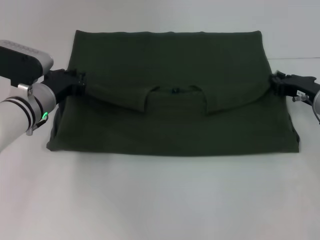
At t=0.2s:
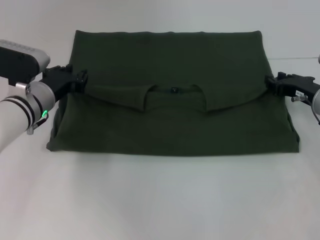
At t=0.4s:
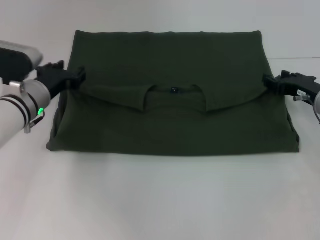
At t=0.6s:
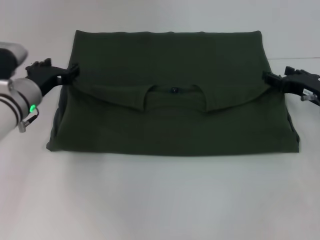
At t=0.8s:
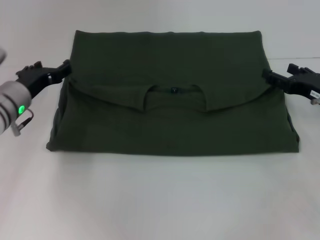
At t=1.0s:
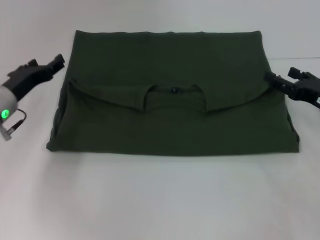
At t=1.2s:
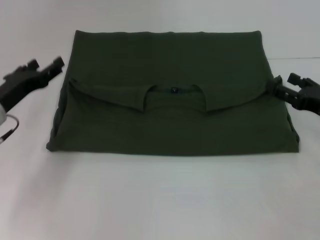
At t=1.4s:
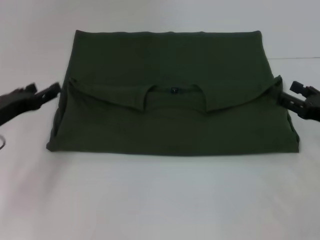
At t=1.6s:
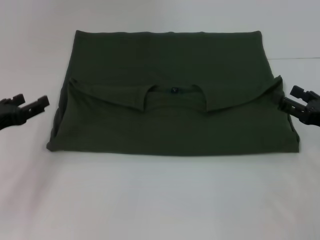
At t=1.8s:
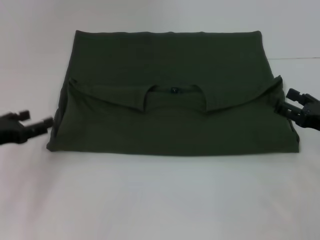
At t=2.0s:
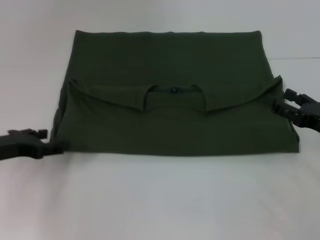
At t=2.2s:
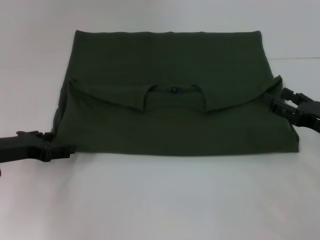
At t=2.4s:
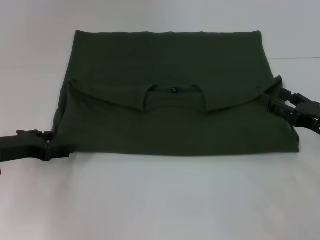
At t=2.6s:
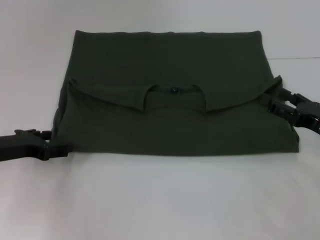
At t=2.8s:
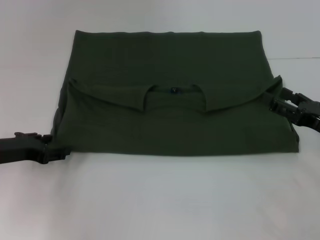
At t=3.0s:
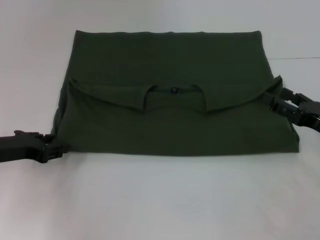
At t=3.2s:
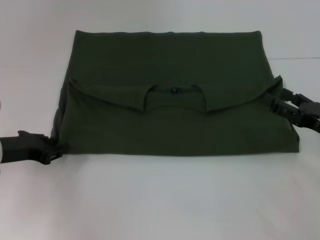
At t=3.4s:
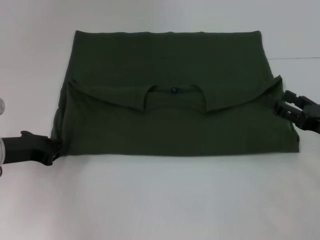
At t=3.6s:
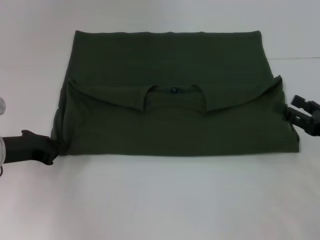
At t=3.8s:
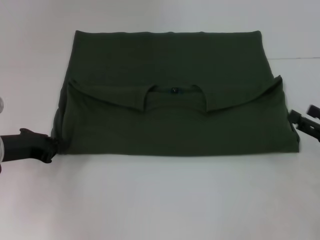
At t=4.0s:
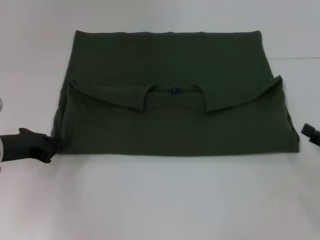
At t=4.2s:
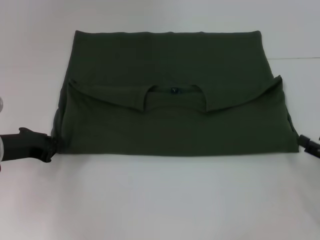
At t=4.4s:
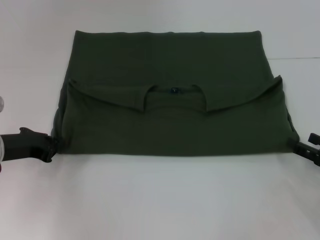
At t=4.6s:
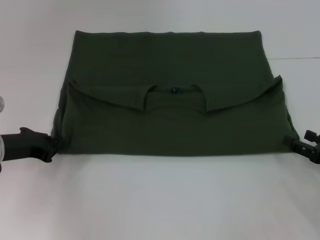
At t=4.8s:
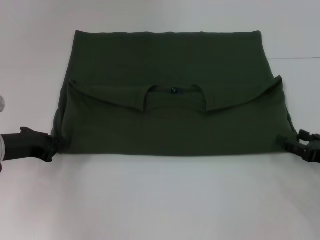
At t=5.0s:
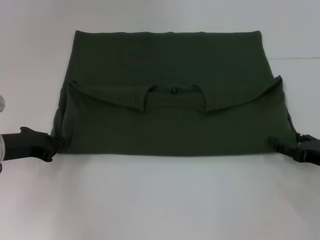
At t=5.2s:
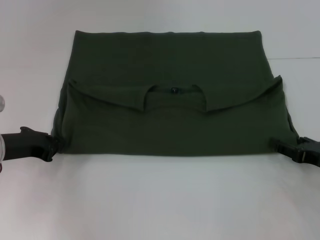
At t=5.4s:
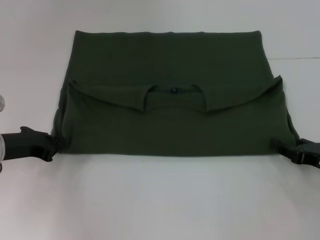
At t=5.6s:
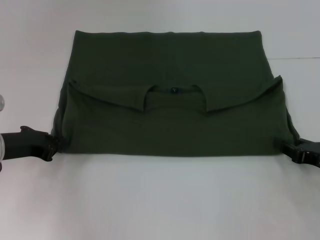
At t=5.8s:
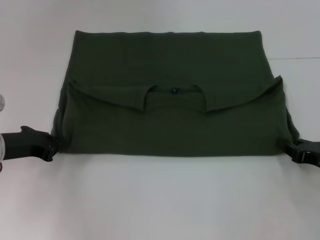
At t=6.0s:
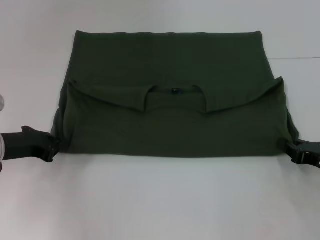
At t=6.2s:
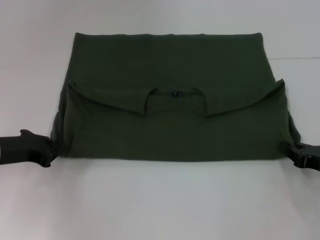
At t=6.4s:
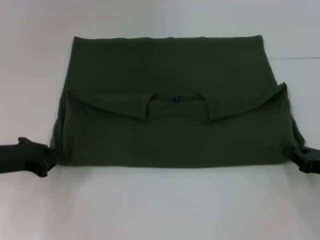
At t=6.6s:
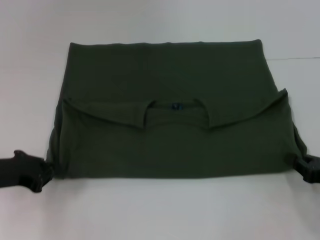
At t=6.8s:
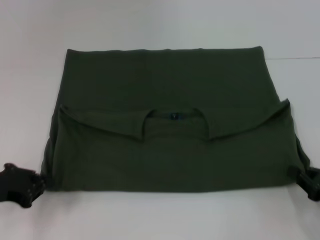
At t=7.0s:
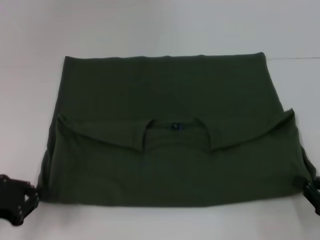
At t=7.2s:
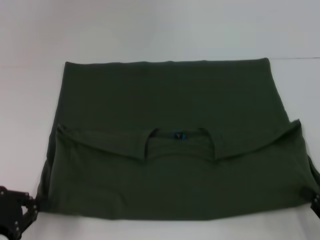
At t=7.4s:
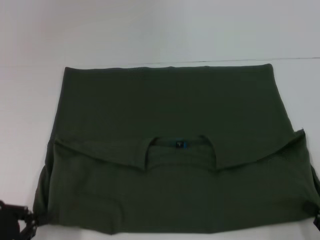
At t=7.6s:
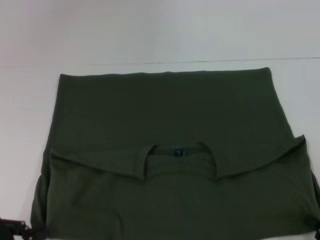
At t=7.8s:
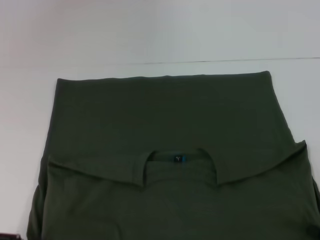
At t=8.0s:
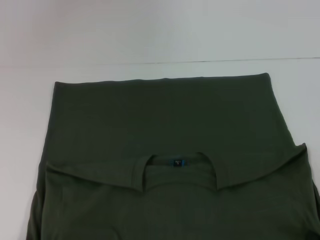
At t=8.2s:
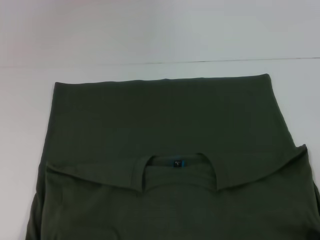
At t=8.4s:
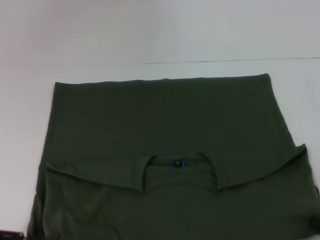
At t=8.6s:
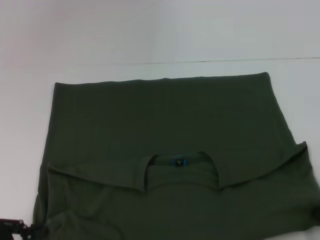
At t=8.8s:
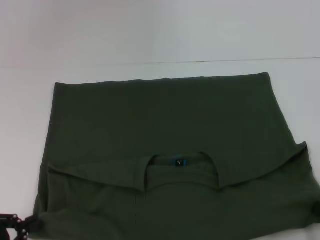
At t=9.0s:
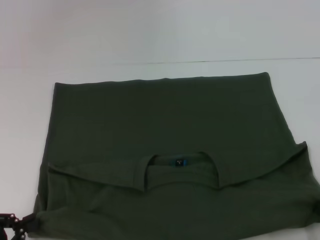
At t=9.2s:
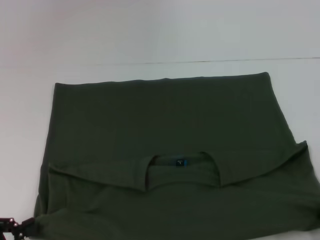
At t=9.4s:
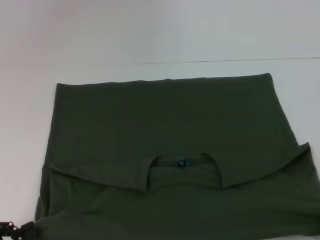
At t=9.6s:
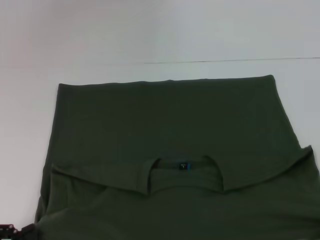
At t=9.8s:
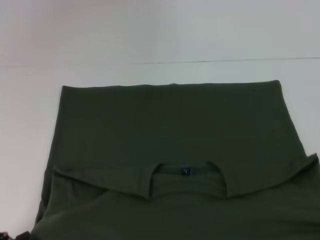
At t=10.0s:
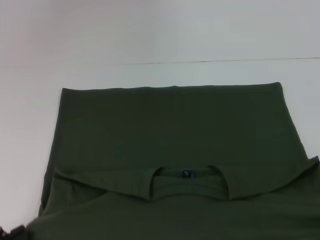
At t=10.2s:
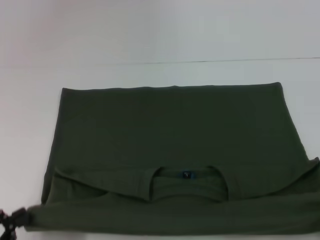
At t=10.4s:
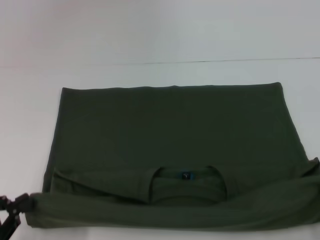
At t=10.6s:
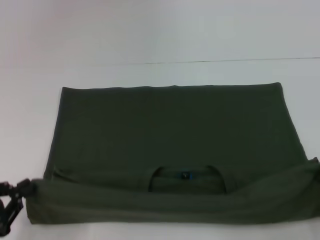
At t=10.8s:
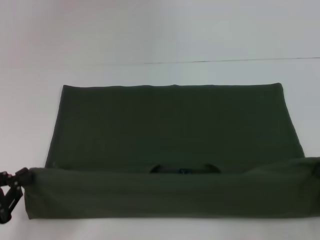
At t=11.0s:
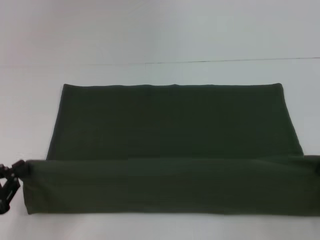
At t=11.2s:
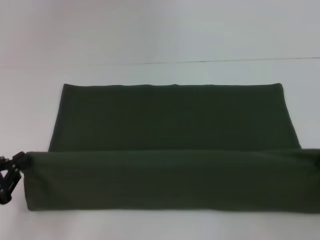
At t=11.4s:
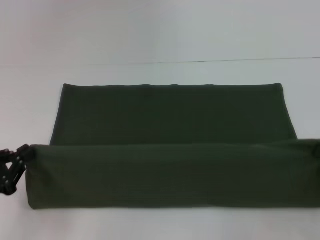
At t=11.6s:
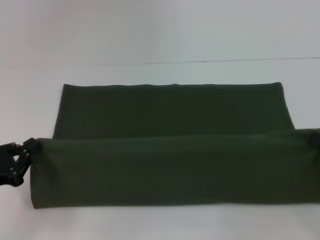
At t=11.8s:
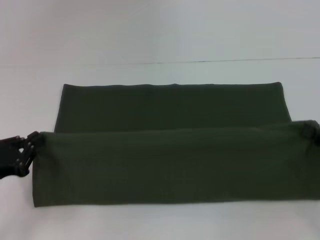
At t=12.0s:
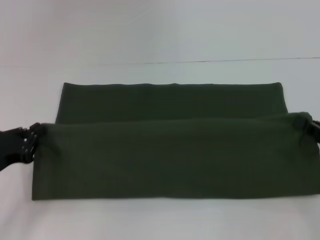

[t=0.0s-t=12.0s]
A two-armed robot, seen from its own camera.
Step, t=0.8s to t=8.0s: Pull the clothes with your left hand.
Step, t=0.8s to t=8.0s: Pull the clothes with your right hand.
t=0.0s to t=1.6s: The right gripper is displaced backward by about 10 cm, and opens, while the left gripper heads to the left and backward, covering approximately 15 cm, and opens up.
t=3.0s to t=4.4s: The right gripper ends up some 5 cm from where it was; the left gripper closes up.
t=4.4s to t=6.0s: The right gripper closes up.
t=6.0s to t=7.6s: Both grippers move backward, roughly 15 cm.
t=7.6s to t=10.4s: There are only small adjustments of the grippers.
t=10.4s to t=12.0s: The grippers both shift forward by about 10 cm.

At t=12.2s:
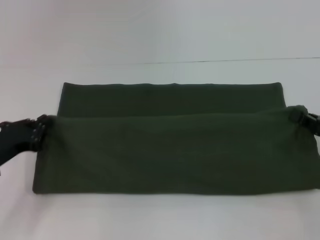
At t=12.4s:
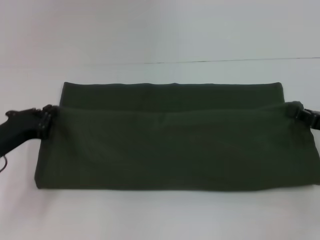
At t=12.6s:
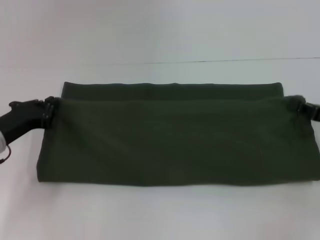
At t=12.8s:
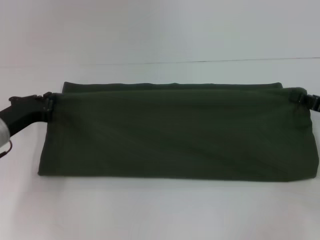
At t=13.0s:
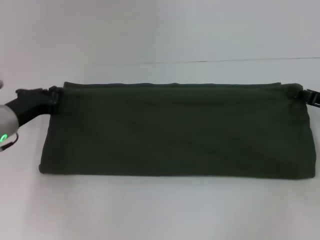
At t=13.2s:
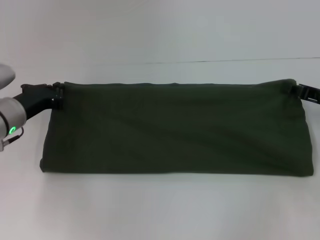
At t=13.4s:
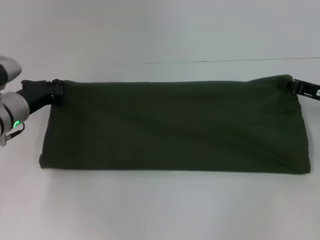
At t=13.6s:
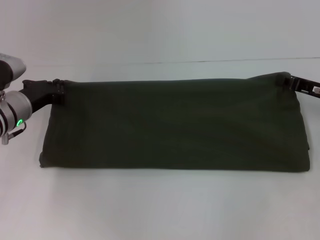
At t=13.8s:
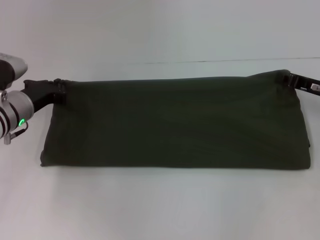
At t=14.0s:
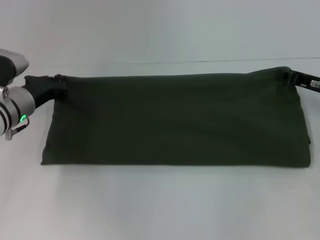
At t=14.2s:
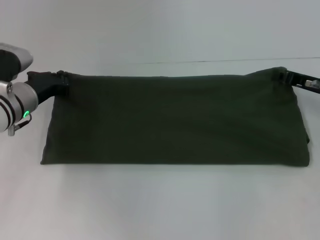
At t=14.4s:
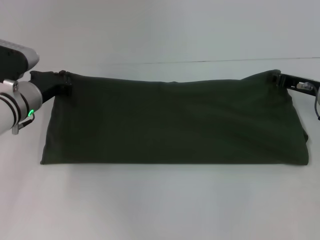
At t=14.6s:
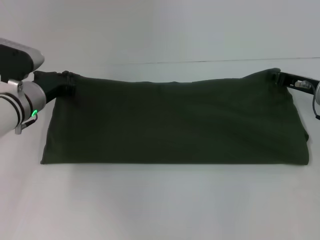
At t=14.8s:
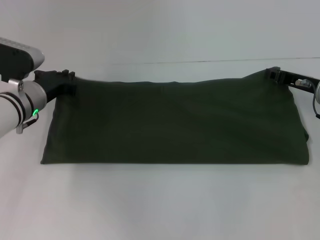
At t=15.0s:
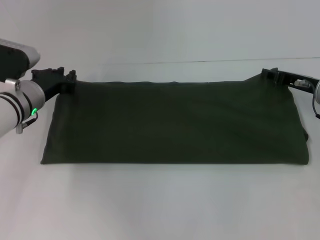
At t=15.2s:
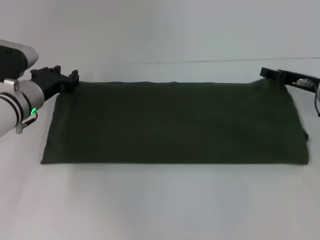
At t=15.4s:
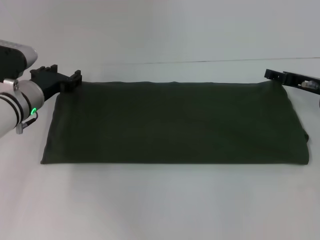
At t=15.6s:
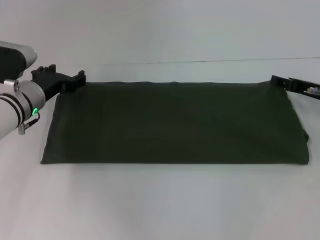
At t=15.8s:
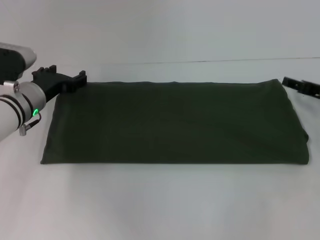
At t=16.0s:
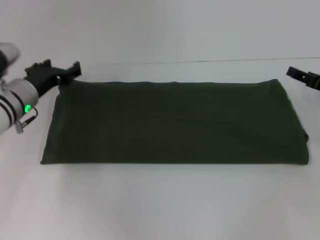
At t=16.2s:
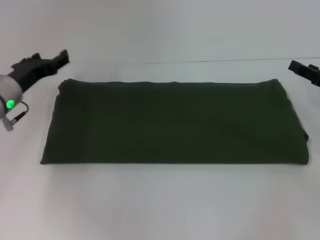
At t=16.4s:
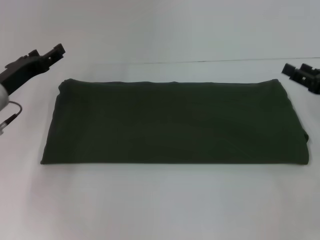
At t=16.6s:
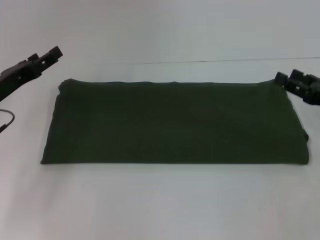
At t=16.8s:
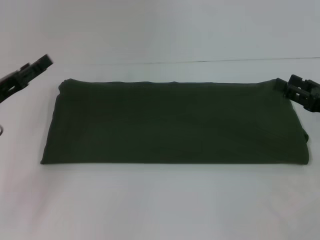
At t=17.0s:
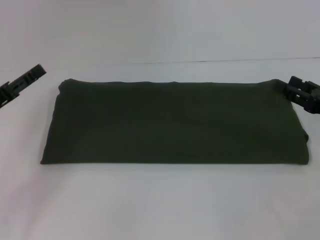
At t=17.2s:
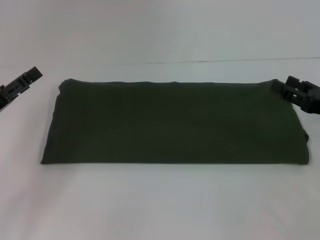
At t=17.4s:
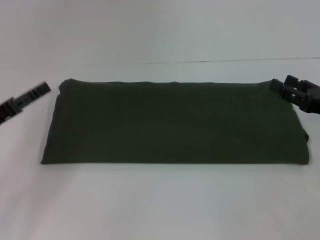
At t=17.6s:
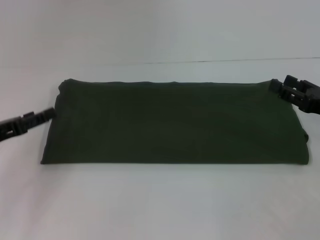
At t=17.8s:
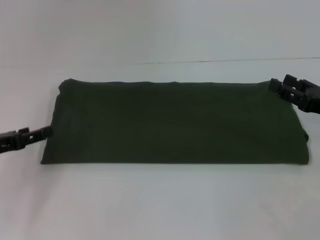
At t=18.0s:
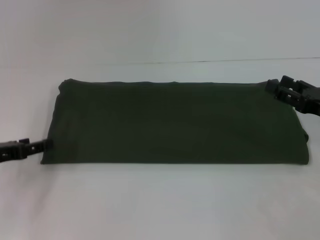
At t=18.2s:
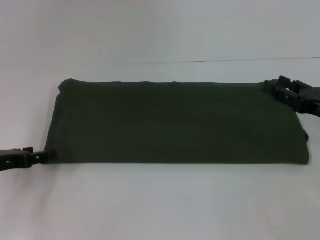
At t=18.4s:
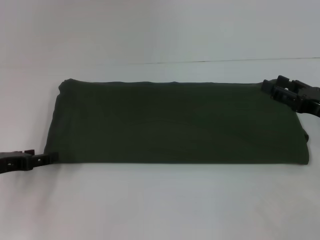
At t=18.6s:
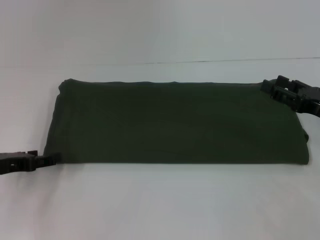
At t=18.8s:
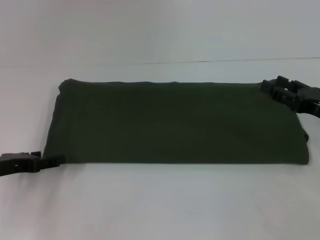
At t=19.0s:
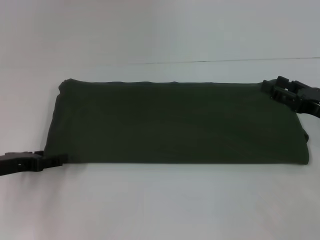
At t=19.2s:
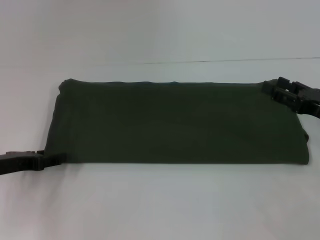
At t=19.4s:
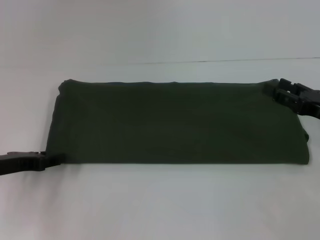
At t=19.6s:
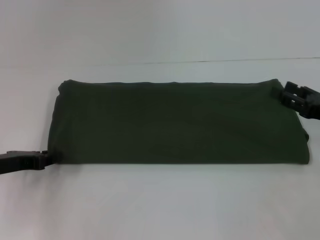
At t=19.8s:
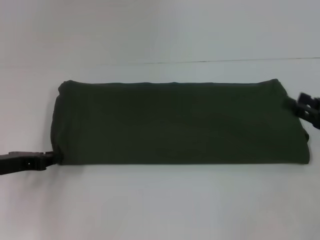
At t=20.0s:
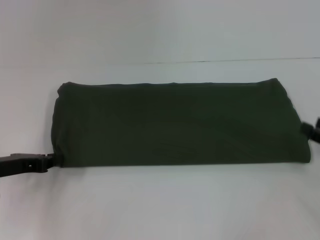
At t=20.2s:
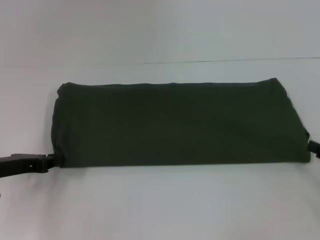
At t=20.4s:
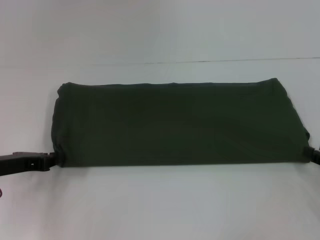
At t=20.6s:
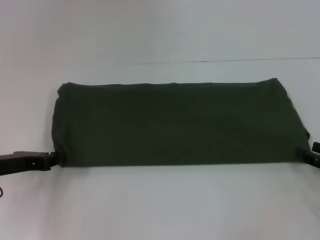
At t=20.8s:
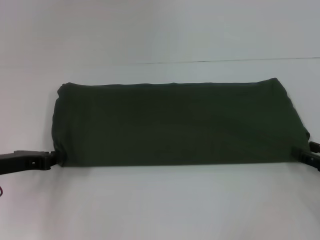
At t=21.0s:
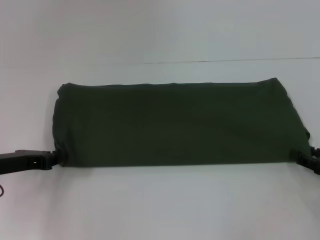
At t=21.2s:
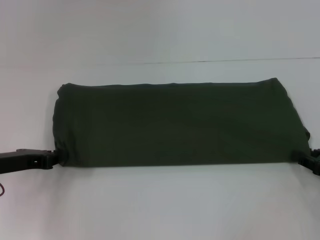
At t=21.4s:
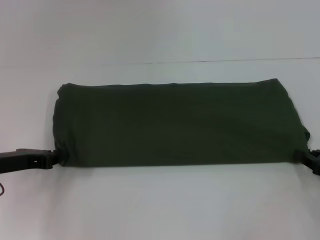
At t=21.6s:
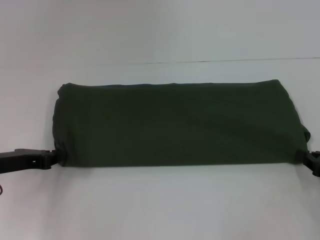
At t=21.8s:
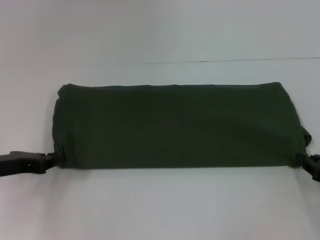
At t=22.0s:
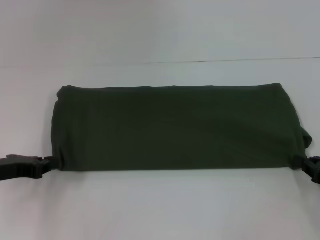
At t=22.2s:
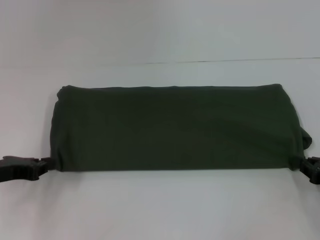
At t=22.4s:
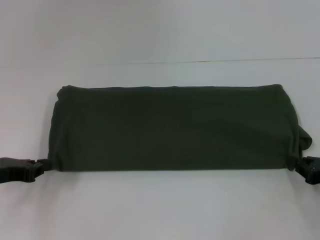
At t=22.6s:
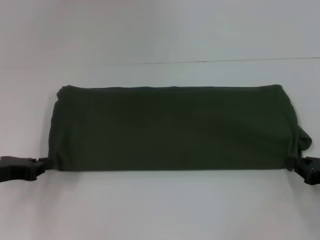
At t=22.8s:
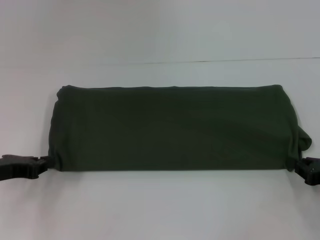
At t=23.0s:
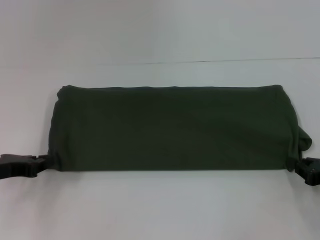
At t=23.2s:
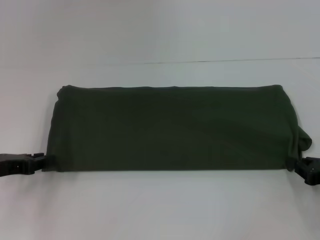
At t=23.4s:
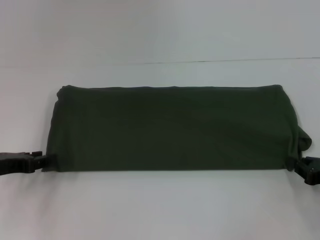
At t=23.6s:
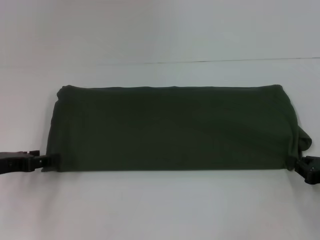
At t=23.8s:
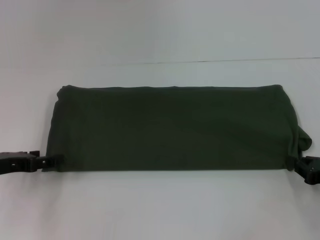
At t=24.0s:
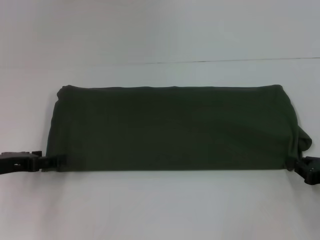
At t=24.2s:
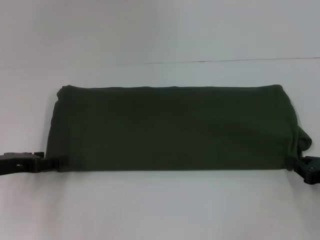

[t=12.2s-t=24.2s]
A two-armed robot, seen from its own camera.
Step, t=12.2s to t=15.6s: Fold the clothes with your left hand.
Step, t=12.2s to t=15.6s: Fold the clothes with your right hand.
t=12.2s to t=13.8s: The right gripper moves forward, about 10 cm. The left gripper heads forward and to the right, covering roughly 10 cm.
t=13.8s to t=15.2s: The right gripper opens.
t=15.2s to t=16.6s: The left gripper heads to the left and backward, covering about 10 cm, and opens. The right gripper heads backward, covering some 10 cm.
t=16.6s to t=18.2s: The left gripper shifts about 5 cm backward.
t=18.2s to t=19.8s: The left gripper closes its fingers.
t=19.8s to t=21.2s: The right gripper ends up roughly 5 cm from where it was.
t=21.2s to t=22.6s: The right gripper closes its fingers.
t=22.6s to t=24.2s: The left gripper opens.
